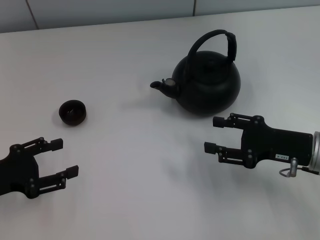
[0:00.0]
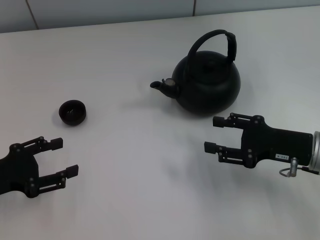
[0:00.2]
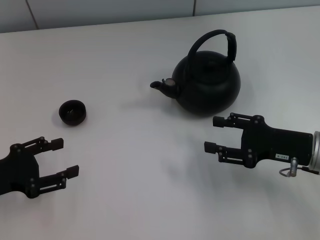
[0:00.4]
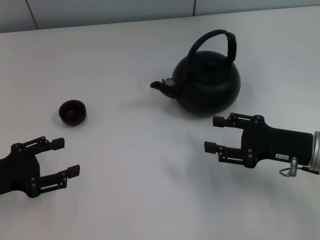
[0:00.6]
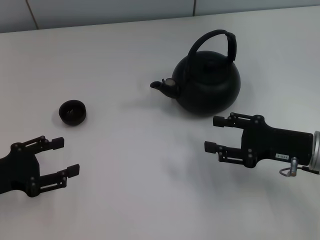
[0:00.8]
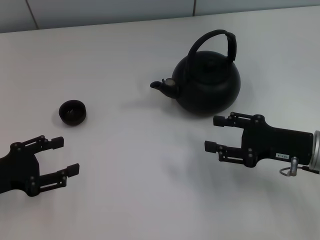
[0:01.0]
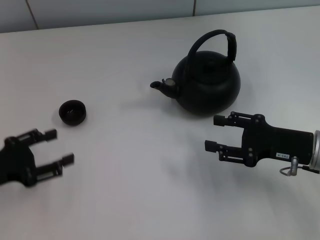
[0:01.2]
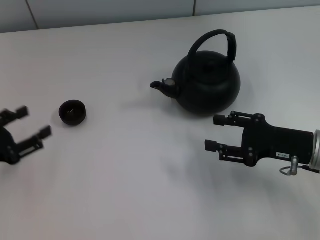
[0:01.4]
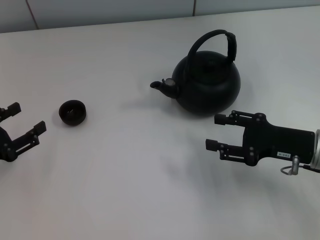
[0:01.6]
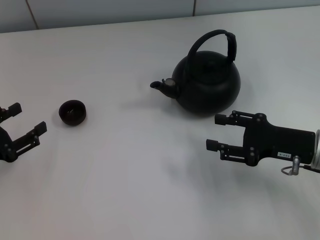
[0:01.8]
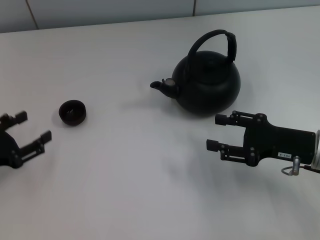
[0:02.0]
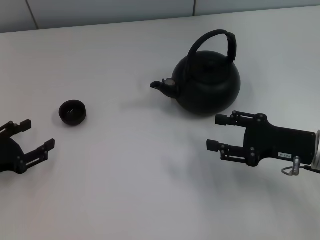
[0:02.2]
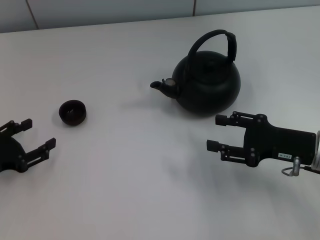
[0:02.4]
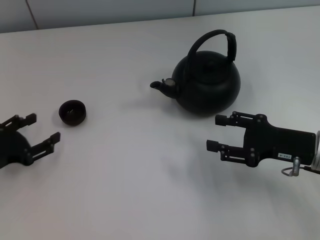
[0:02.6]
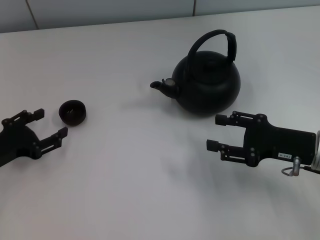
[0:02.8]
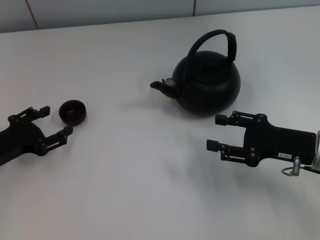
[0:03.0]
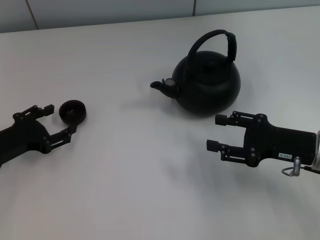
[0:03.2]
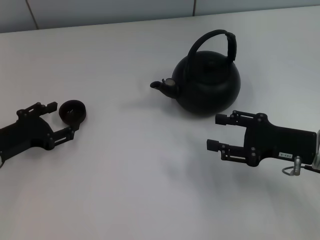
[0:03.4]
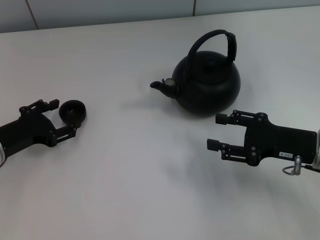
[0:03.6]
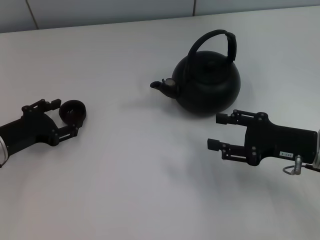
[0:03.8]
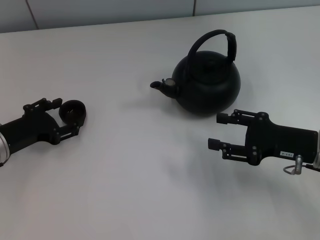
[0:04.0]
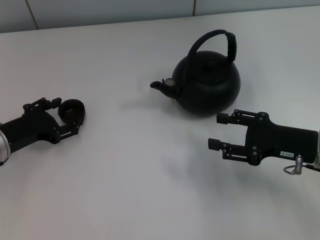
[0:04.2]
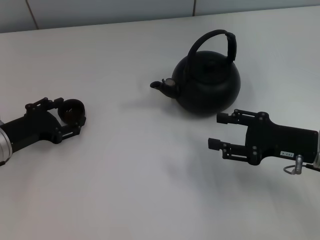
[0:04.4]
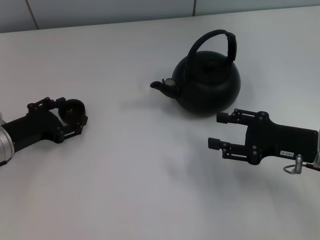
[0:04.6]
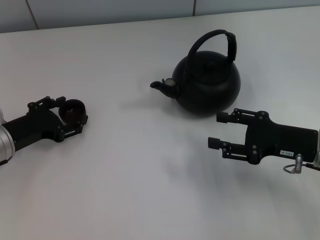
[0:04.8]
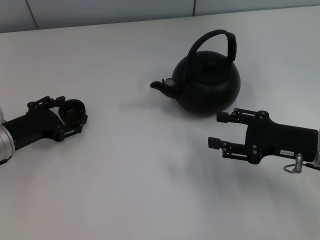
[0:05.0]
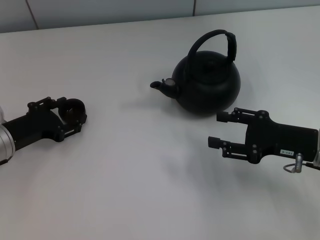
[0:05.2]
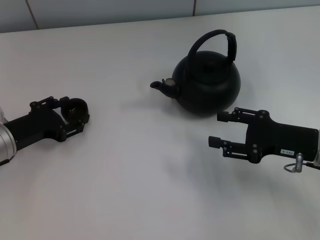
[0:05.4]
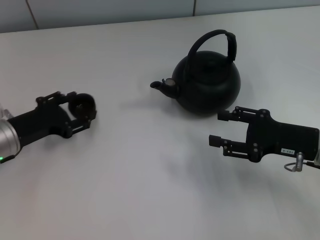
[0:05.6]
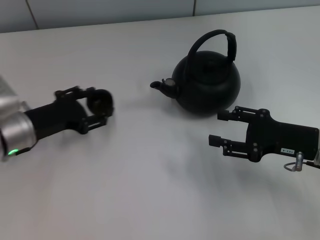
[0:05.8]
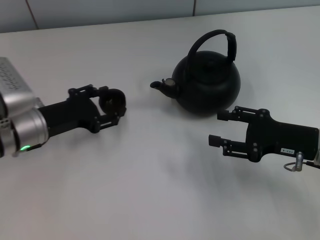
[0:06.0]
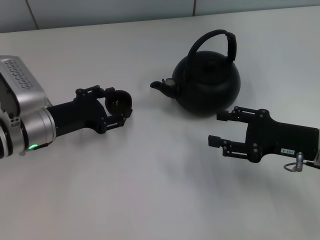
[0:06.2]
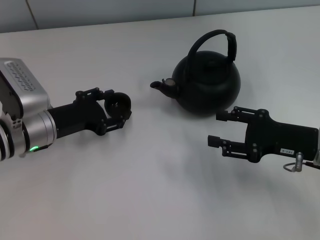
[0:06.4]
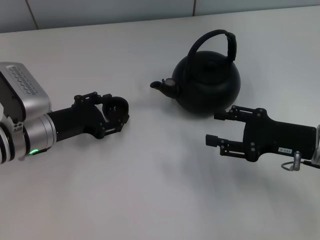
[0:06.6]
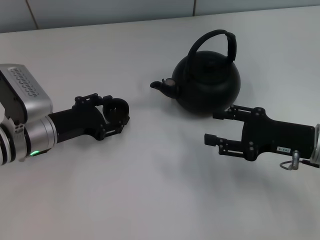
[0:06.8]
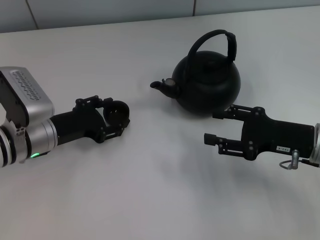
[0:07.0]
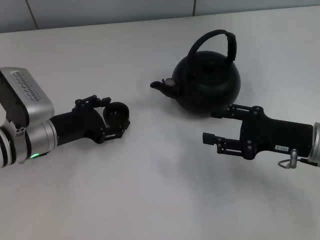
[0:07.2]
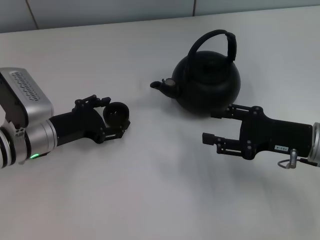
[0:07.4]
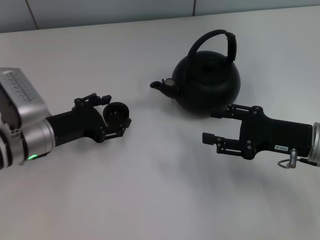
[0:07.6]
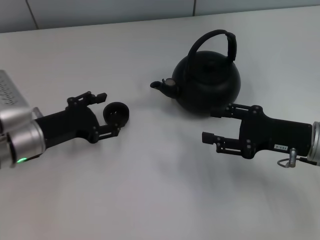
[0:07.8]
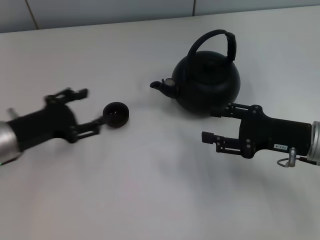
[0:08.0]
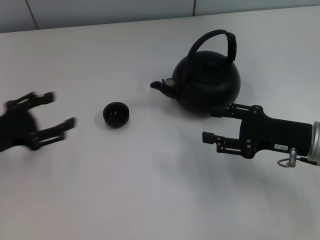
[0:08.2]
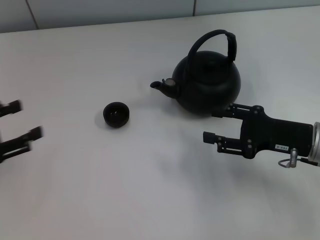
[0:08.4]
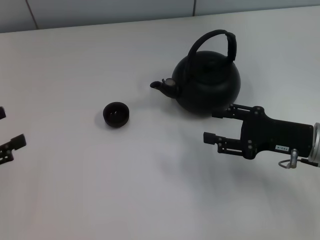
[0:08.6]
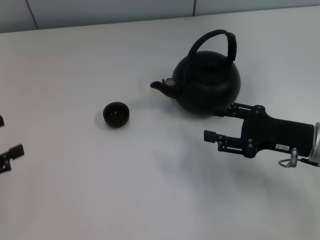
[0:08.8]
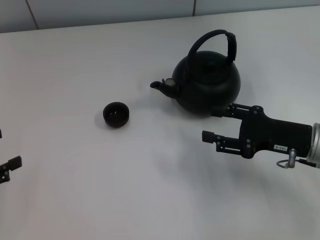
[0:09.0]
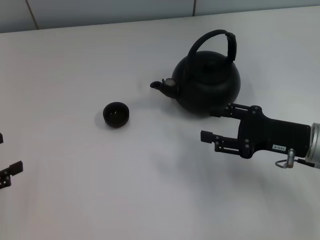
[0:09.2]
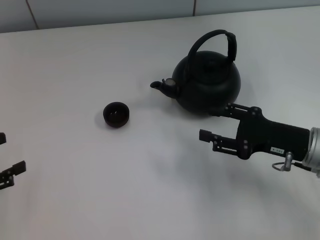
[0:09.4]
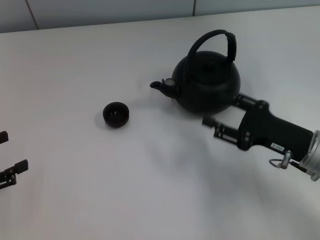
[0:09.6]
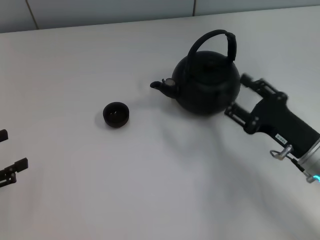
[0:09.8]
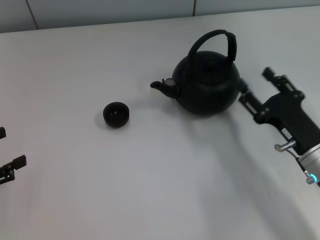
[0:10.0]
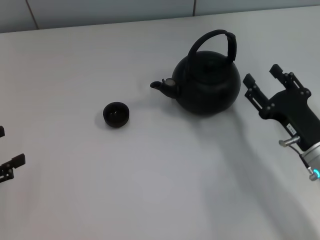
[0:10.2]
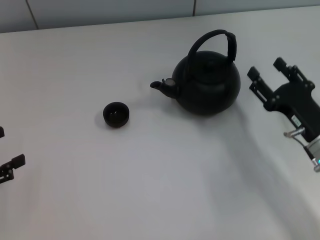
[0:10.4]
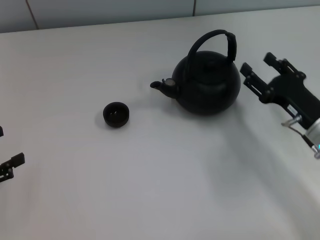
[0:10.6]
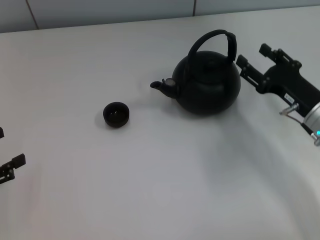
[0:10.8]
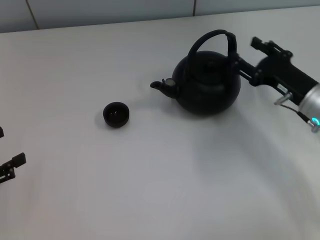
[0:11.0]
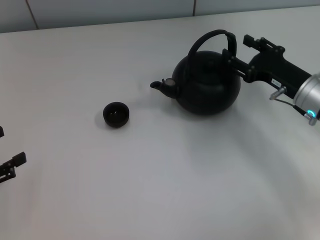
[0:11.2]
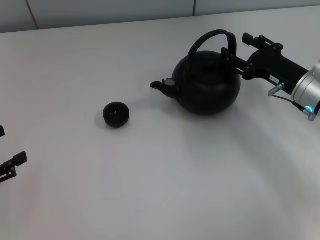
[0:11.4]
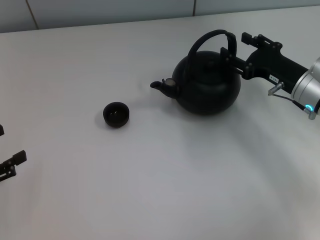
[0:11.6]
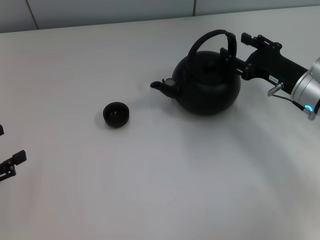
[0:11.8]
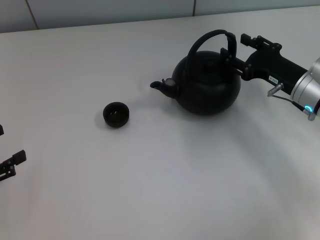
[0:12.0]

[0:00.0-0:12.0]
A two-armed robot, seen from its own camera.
Task of the whole recording: Grasp the handle of the teapot with one hand and pour tea into the teacup.
Step, 0:00.0 to 0:06.2: Pick up the teacup with the left gripper.
Step, 0:06.6 to 0:08.6: Place the teacup in the center of view with the left gripper.
0:01.6 to 0:03.0: The left gripper ends up about 5 cm from where it was.
0:03.0 to 0:04.4: There are only small adjustments of the grippers.
0:04.4 to 0:06.0: The left gripper ends up about 5 cm from where it was.
0:06.0 to 0:07.6: The left gripper opens.
0:07.6 to 0:09.0: The left gripper moves to the left and backward, roughly 20 cm.
0:10.4 to 0:12.0: The right gripper is displaced forward by roughly 10 cm.

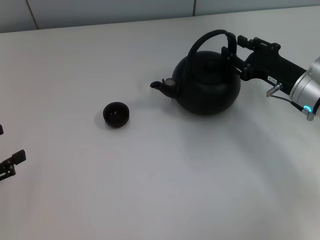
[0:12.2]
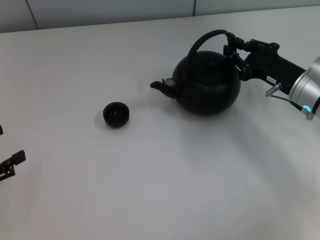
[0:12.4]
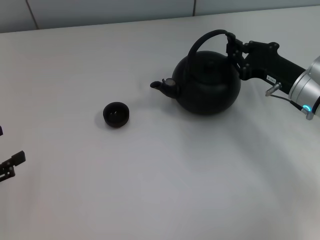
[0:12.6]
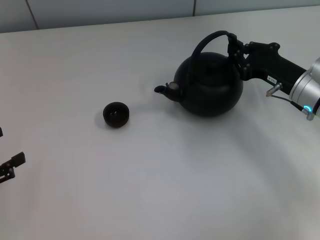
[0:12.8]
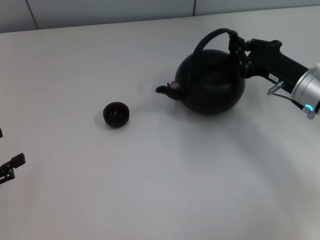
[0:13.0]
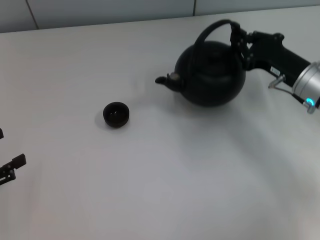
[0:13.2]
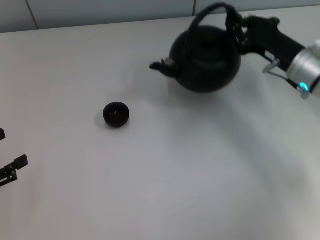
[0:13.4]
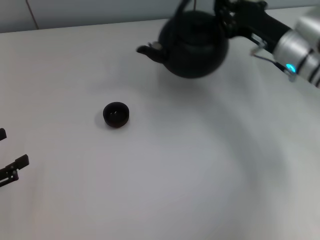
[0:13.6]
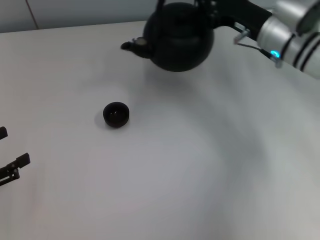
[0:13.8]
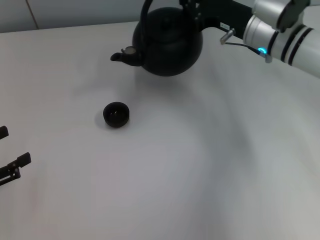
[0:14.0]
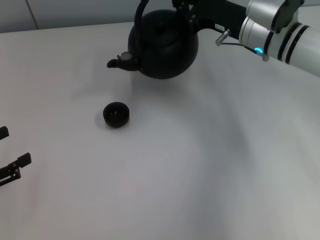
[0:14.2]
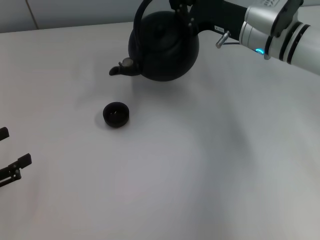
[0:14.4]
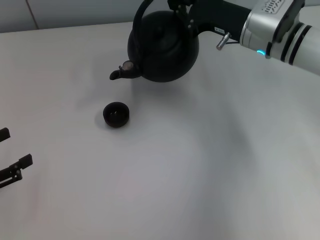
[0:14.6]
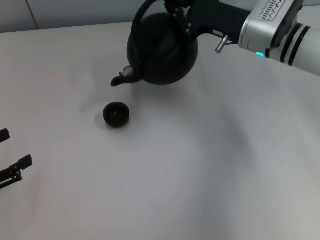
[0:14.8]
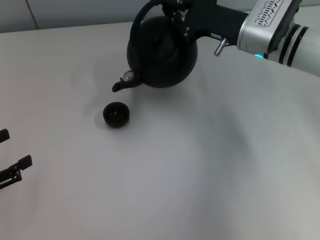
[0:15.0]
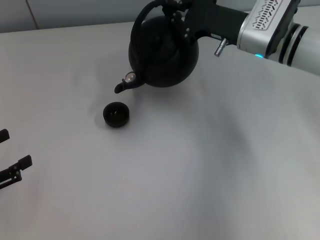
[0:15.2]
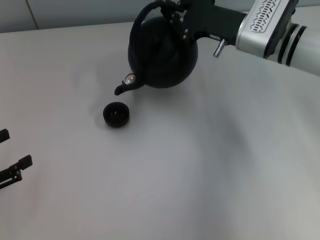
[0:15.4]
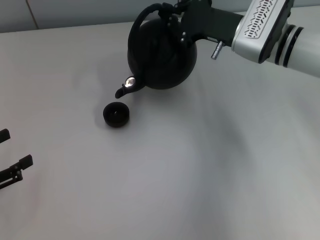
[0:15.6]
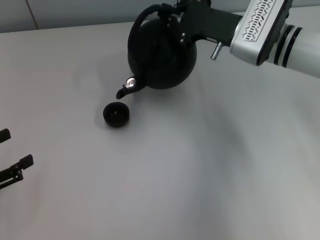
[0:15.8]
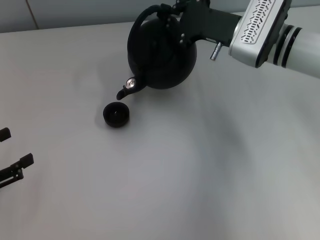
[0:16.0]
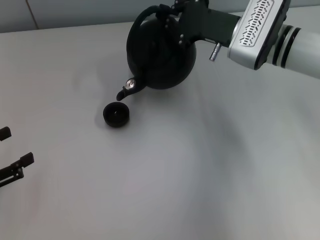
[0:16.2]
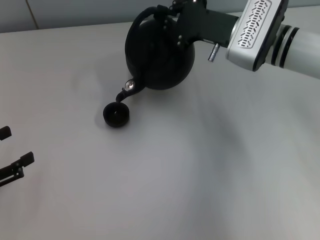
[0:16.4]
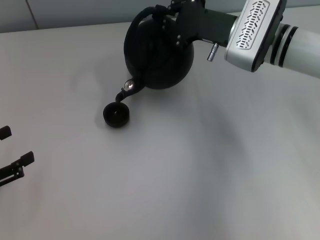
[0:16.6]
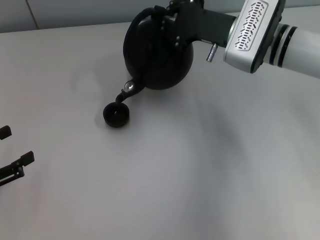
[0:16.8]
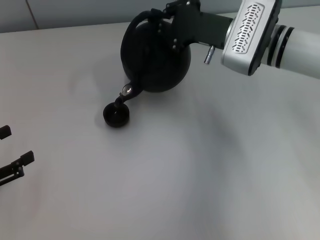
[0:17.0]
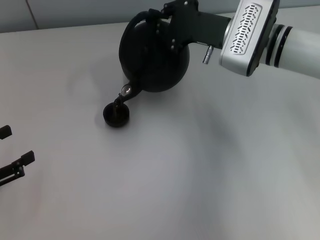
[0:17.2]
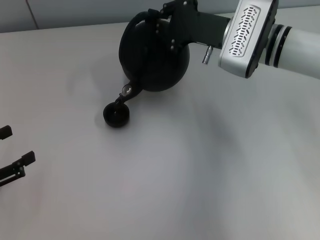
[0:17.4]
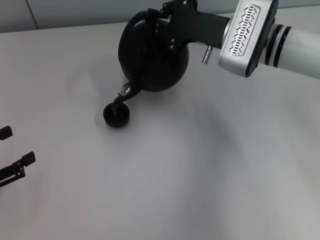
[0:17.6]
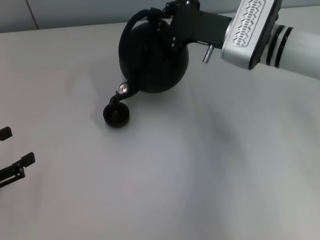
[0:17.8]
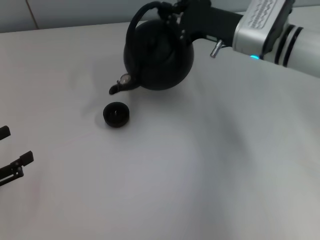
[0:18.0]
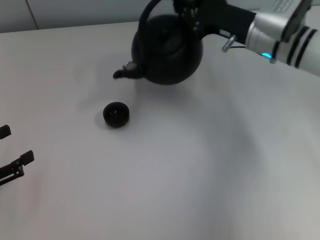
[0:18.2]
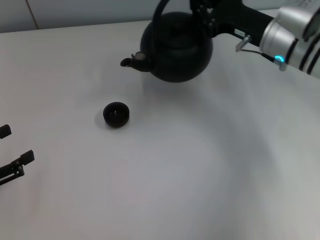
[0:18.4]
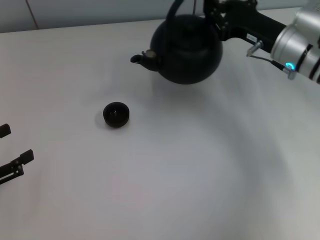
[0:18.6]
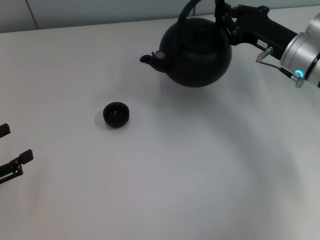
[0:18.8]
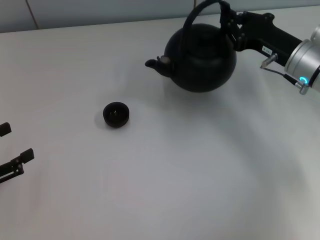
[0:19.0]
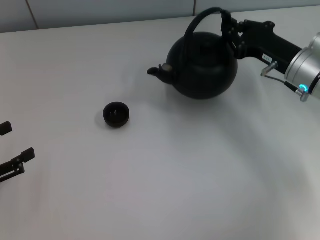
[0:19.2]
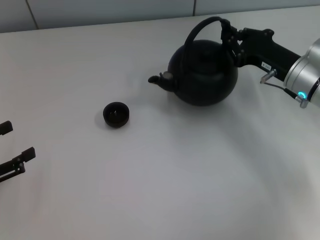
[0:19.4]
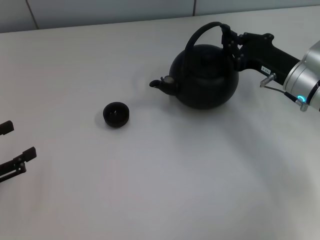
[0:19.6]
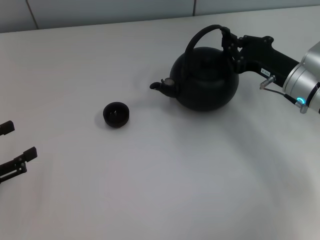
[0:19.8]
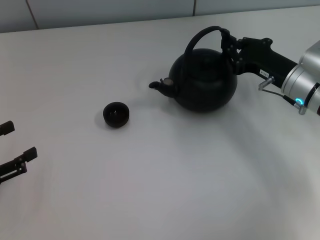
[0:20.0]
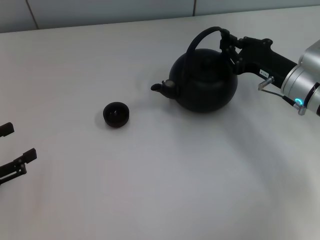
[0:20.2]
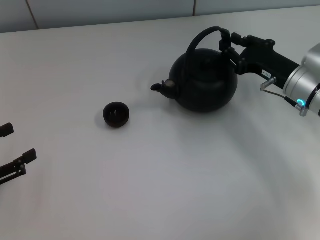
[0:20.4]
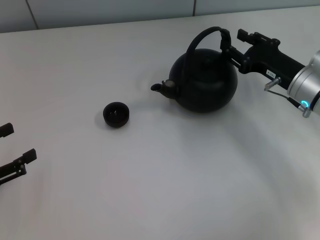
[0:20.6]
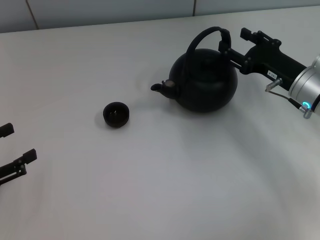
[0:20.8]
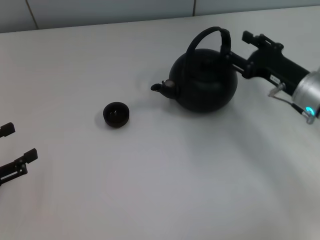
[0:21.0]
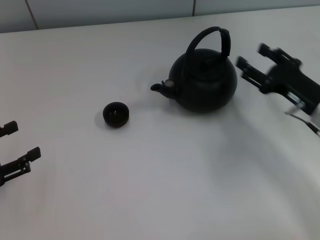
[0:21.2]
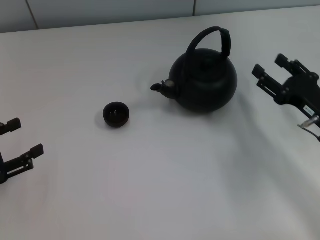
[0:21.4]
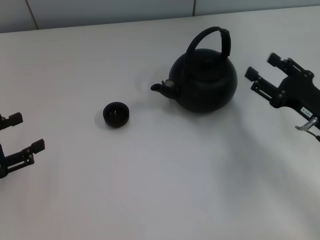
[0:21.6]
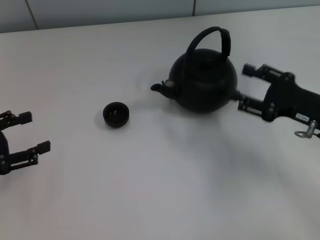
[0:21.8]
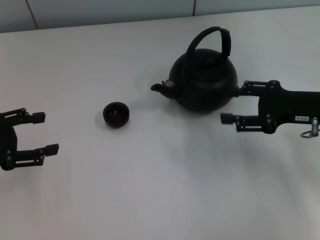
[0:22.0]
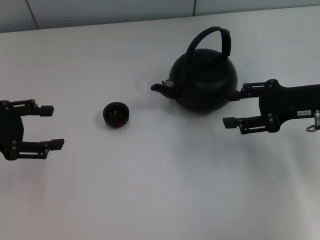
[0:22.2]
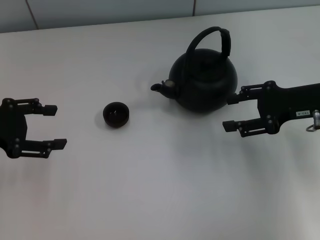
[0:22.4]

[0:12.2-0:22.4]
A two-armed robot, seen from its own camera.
Task of the whole recording: Grasp the handle of the teapot with one hand and pour tea into the teacup.
Step, 0:18.2 to 0:20.0: Put down the teapot with the right gripper.
0:12.2 to 0:13.6: The right gripper travels forward by about 5 cm, and closes up.
0:13.6 to 0:15.2: The right gripper changes place by approximately 5 cm.
0:15.2 to 0:18.0: The grippers move only a little.
0:18.0 to 0:19.4: The right gripper shifts about 10 cm to the right, backward and downward.
0:19.4 to 0:21.0: The right gripper opens up.
0:21.0 to 0:22.4: The right gripper goes roughly 5 cm upward, while the left gripper travels forward and upward by some 10 cm.
